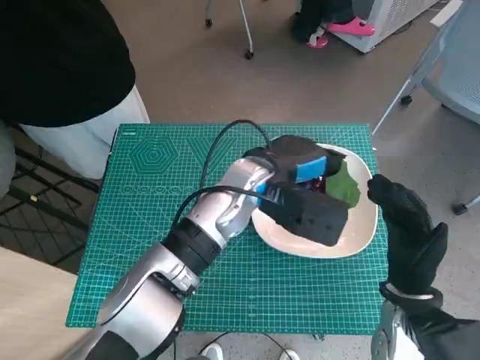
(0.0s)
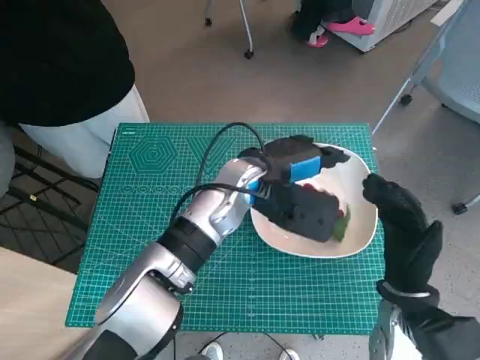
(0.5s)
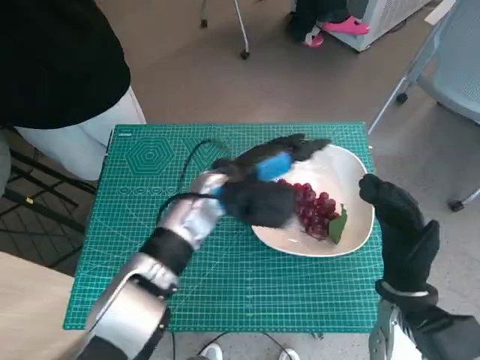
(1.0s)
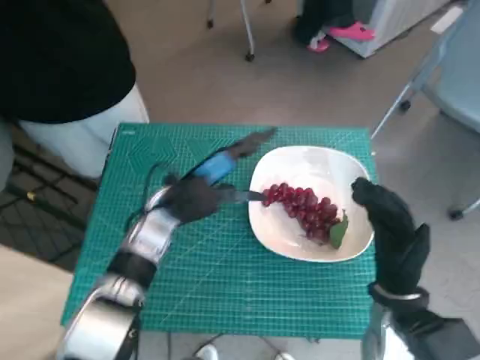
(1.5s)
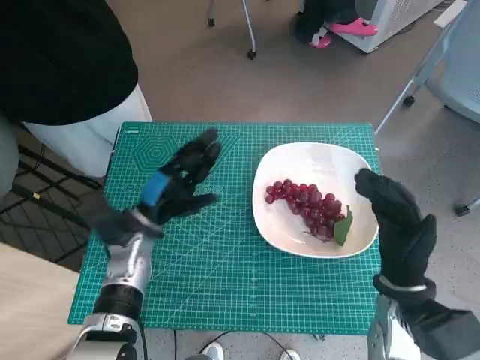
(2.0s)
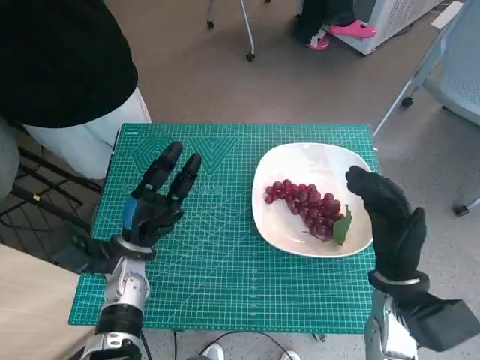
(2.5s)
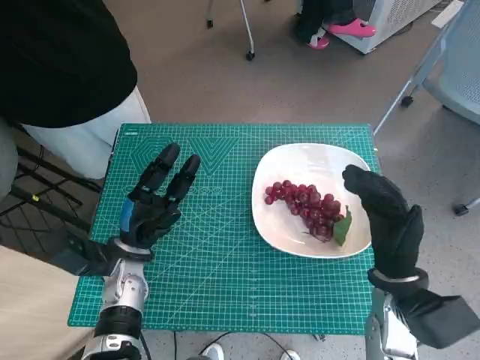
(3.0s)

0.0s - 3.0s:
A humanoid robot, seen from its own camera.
Task of the whole recording: Pick up the grapes and put them on the plate.
0.0s - 1.5s: The left hand is displaced to the left and downward by some 15 cm.
1.5s - 3.0s: The left hand is displaced to the left, downward and backward by some 15 cm.

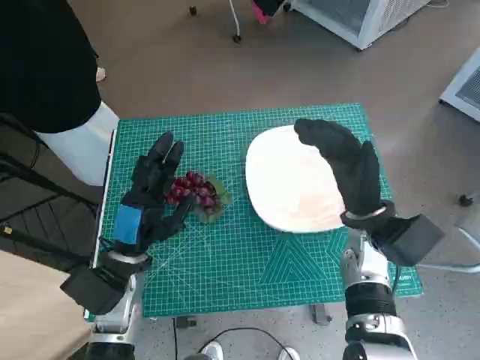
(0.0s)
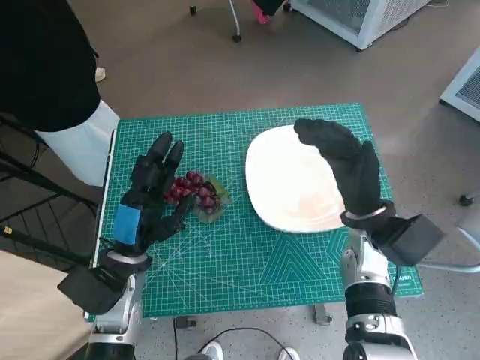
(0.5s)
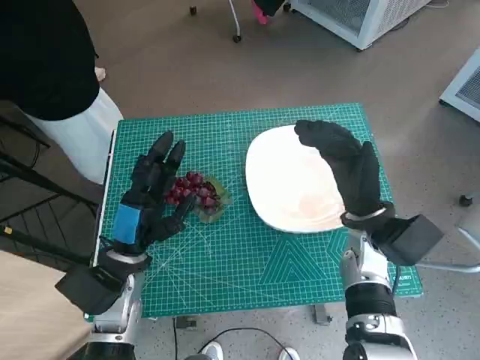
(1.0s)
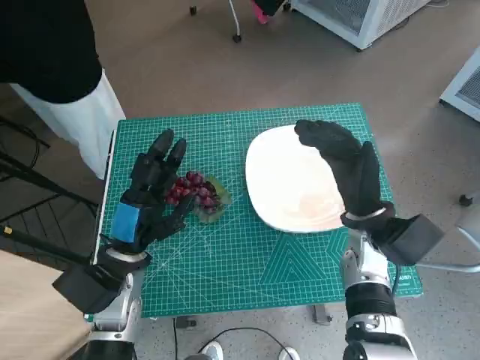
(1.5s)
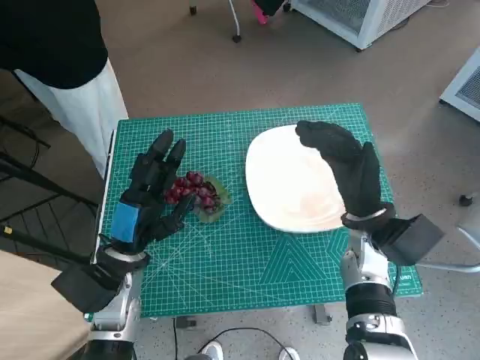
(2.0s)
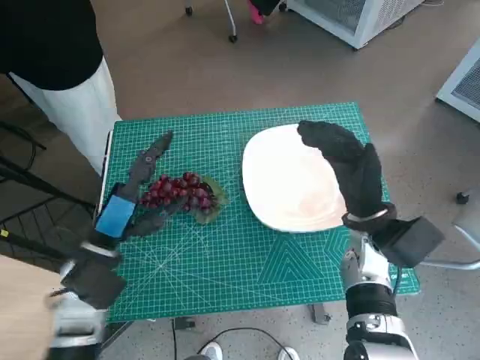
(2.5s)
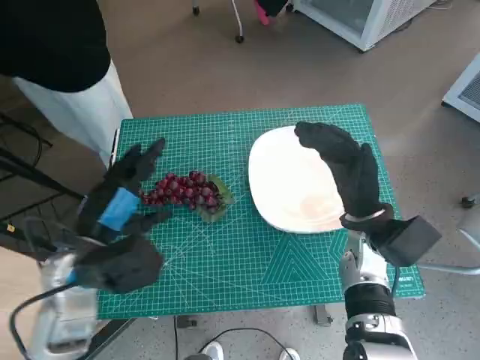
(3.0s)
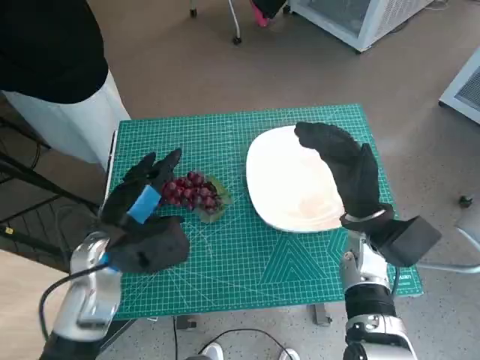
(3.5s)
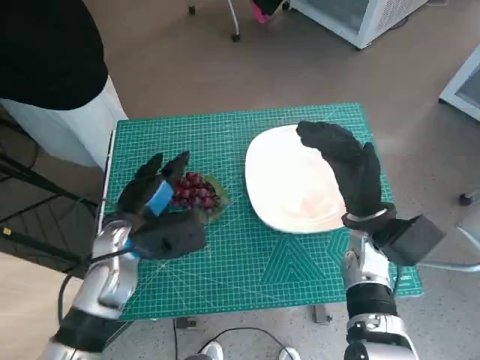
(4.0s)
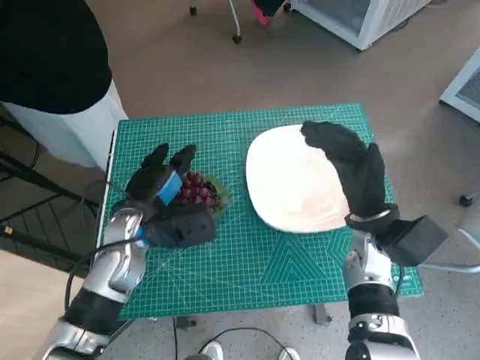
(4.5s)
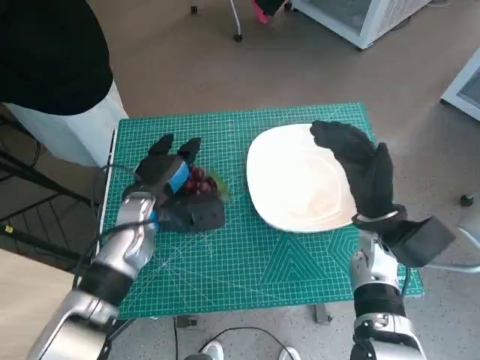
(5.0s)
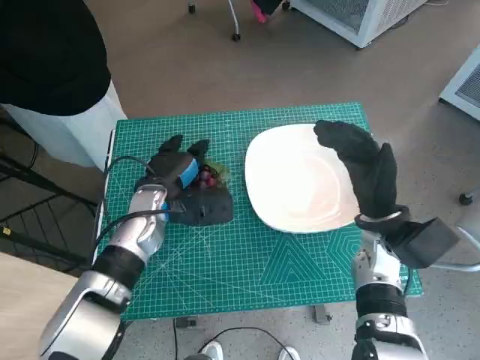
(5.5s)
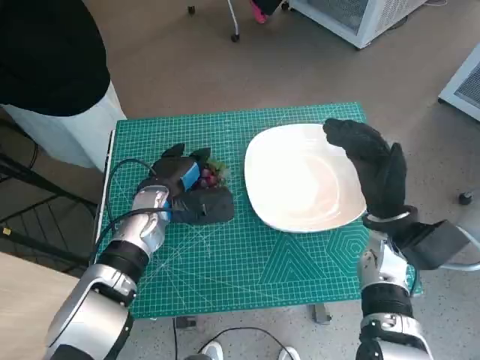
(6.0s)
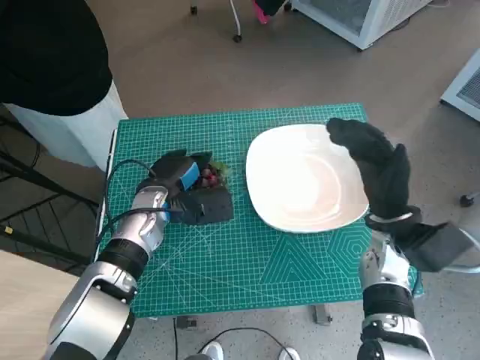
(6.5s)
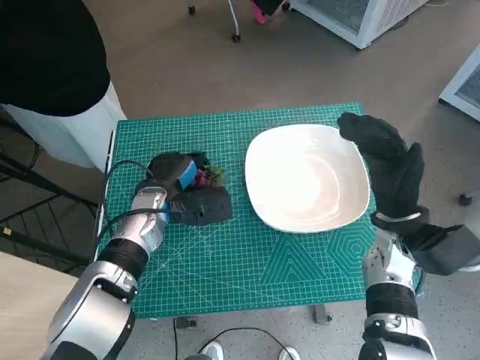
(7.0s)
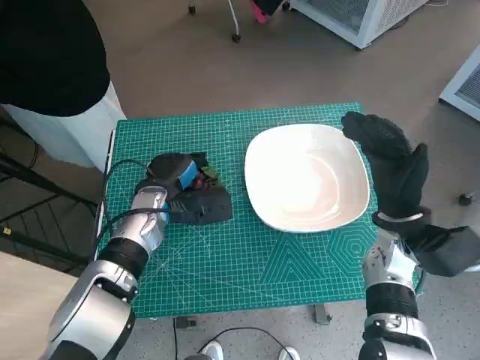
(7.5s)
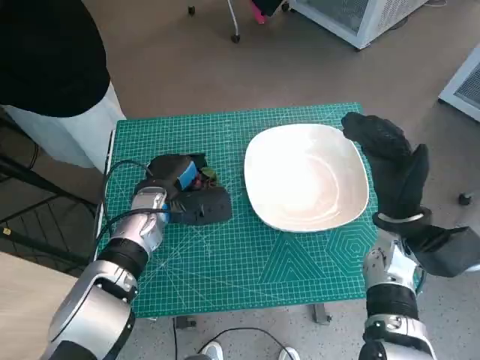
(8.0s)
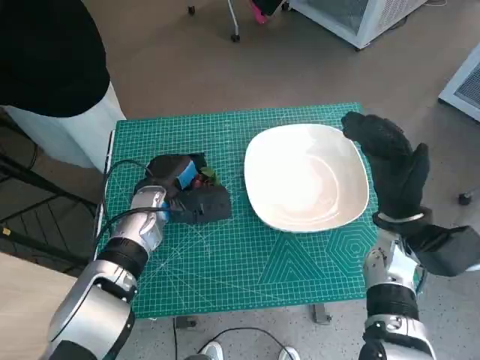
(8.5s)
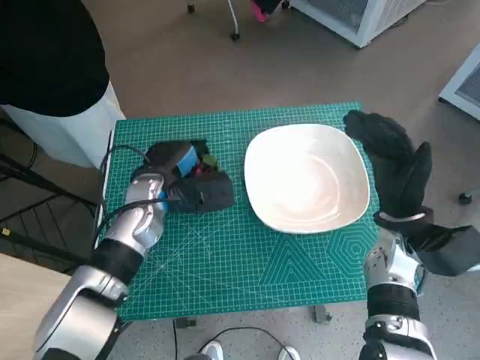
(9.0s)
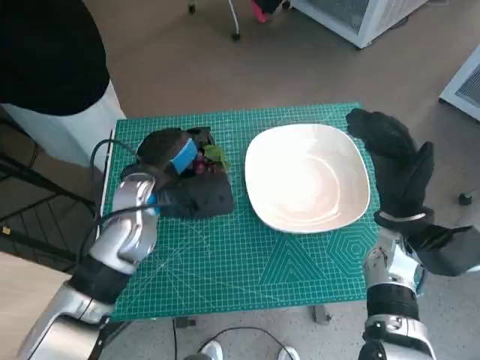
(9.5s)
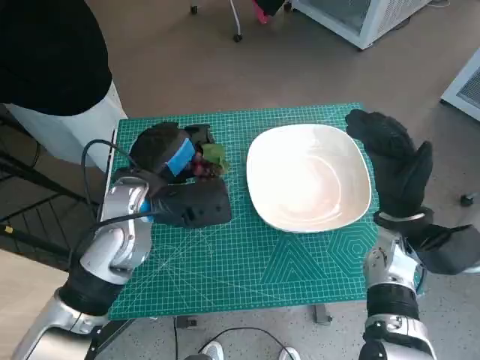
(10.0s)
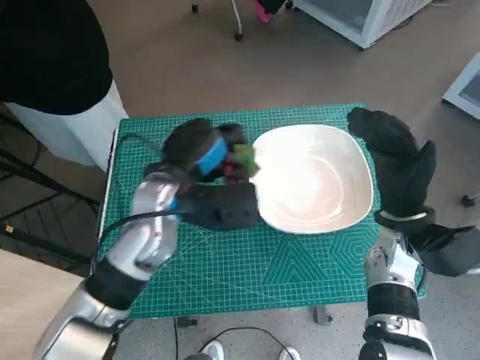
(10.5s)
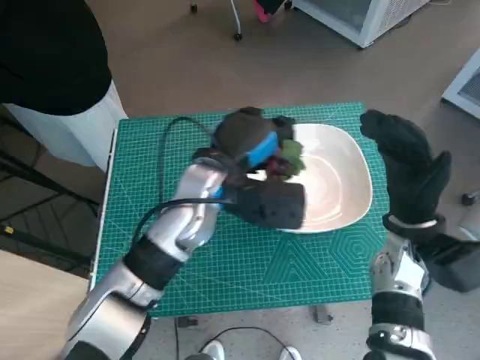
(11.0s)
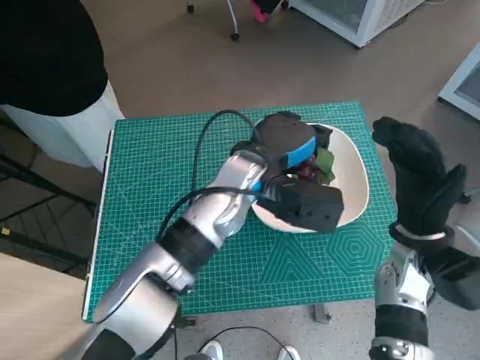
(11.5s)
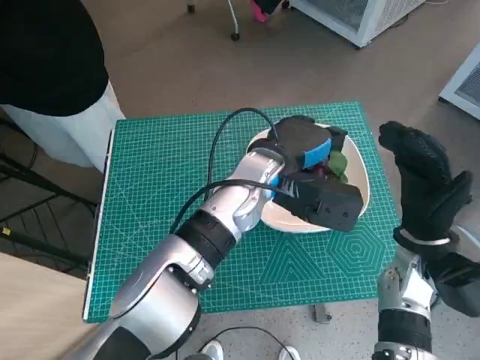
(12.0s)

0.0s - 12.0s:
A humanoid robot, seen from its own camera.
Task of the whole recording: Pick up the grapes and put them on the plate.
Step, 0.0s - 7.0s: Grasp the grapes with left hand.
4.0s - 6.0s: The left hand heads forward, covering some 5 cm.
6.0s - 8.0s: The hands make only small movements.
8.0s - 10.0s: The left hand moves upward, about 10 cm.
10.0s - 12.0s: The left hand moves to the right, about 15 cm.

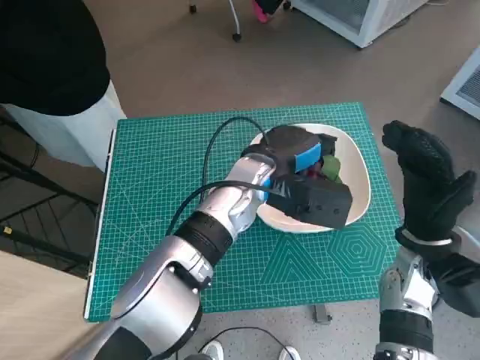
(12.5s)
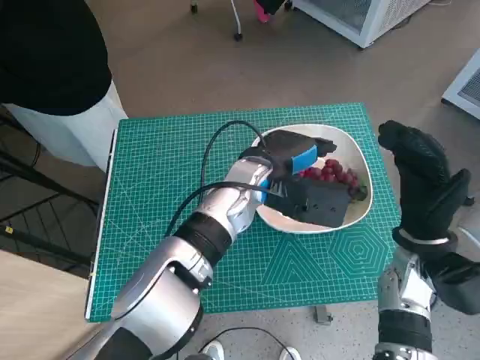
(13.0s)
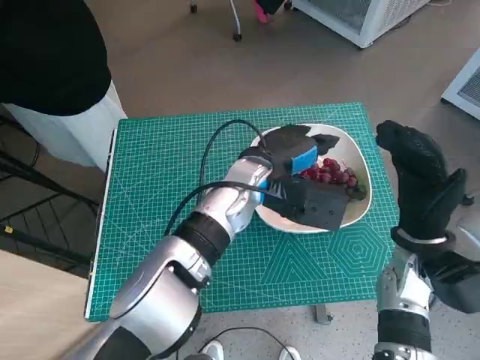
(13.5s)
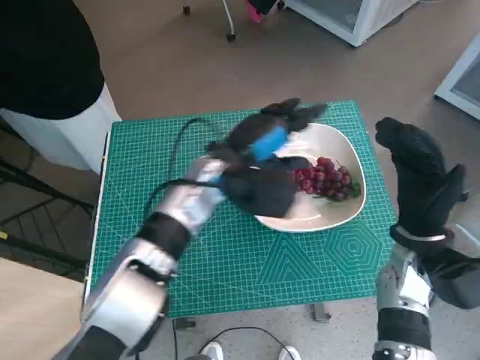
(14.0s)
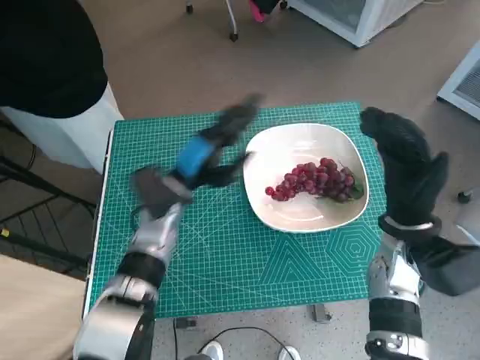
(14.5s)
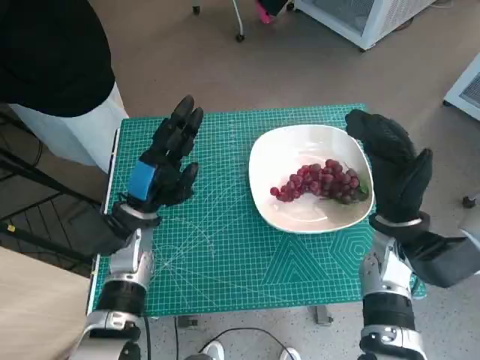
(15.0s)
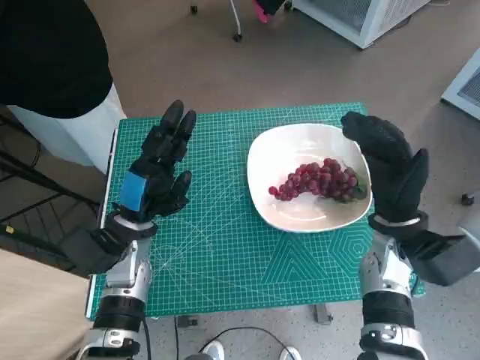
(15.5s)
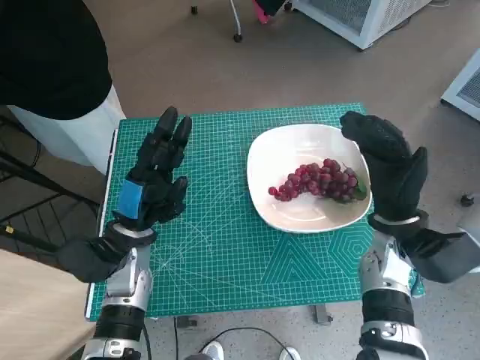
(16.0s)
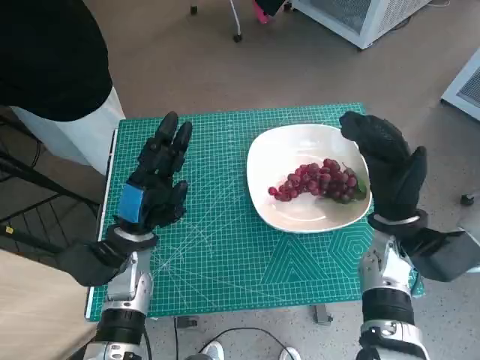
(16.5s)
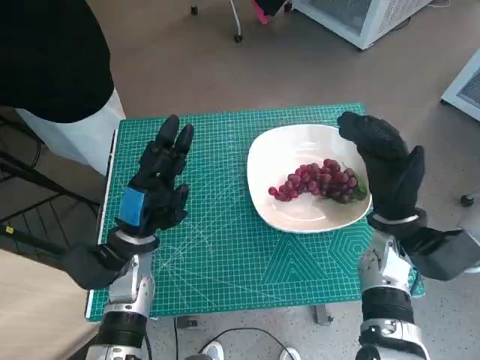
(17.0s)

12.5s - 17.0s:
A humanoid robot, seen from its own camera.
Task of the whole recording: Pick up the grapes and put them on the plate.
12.5s - 14.5s: The left hand is displaced to the left by some 15 cm.
14.5s - 17.0s: The left hand heads backward and to the left, covering roughly 10 cm.

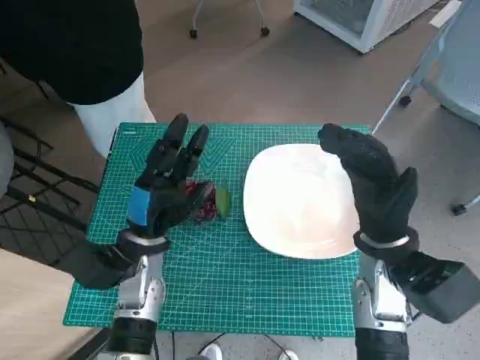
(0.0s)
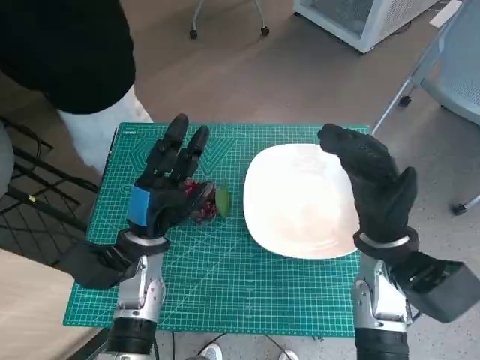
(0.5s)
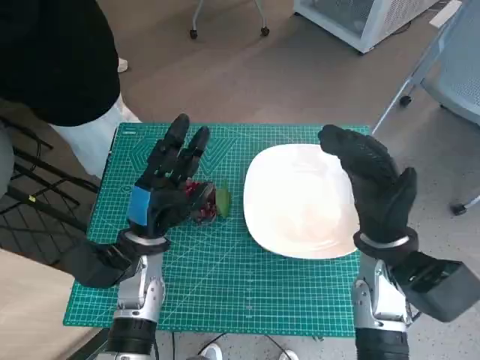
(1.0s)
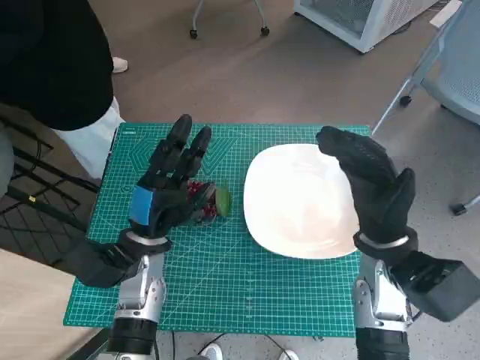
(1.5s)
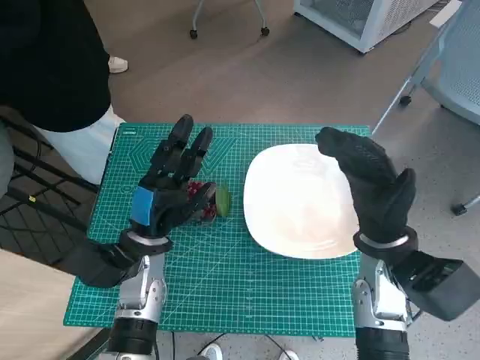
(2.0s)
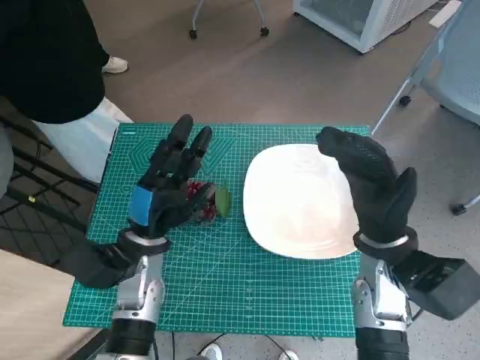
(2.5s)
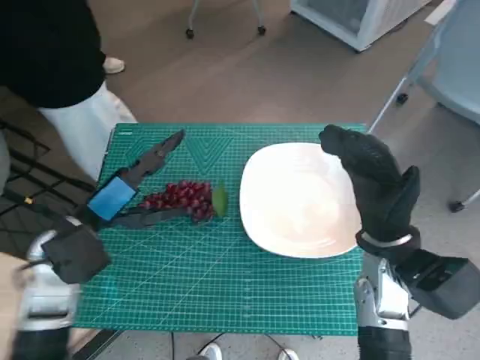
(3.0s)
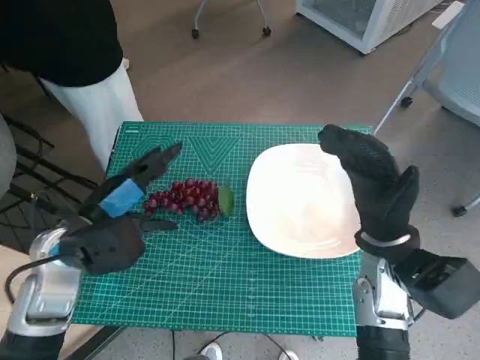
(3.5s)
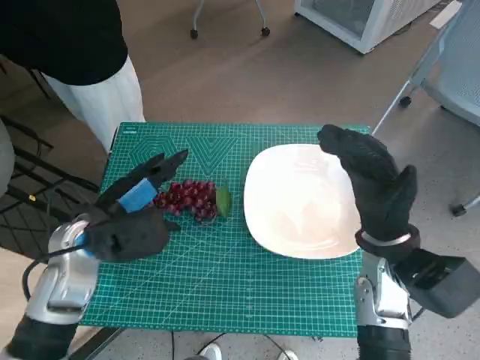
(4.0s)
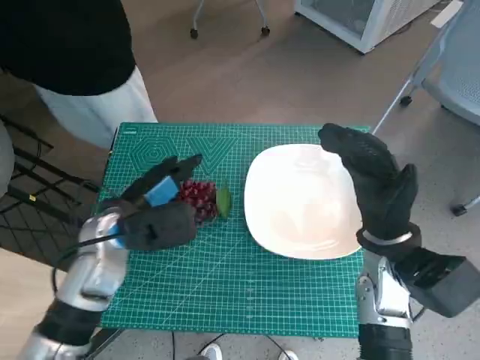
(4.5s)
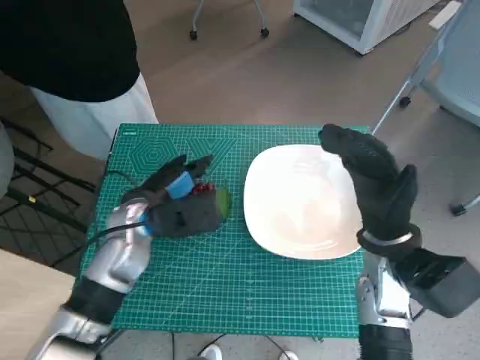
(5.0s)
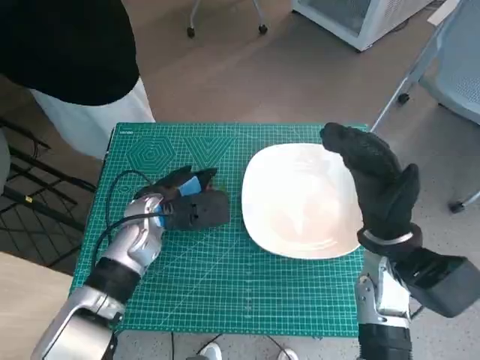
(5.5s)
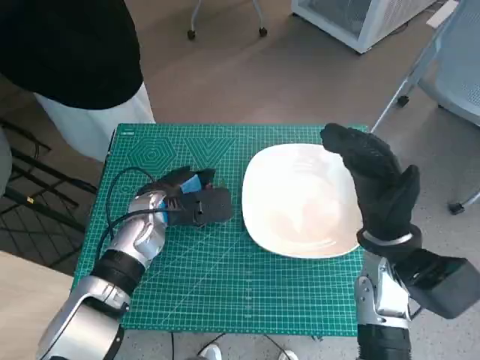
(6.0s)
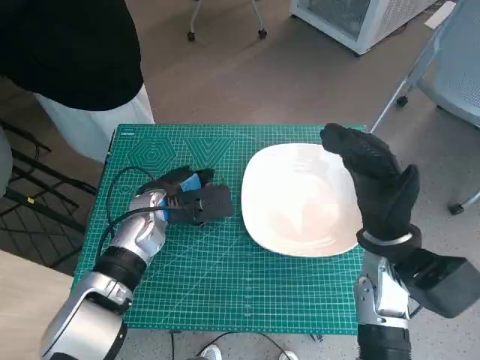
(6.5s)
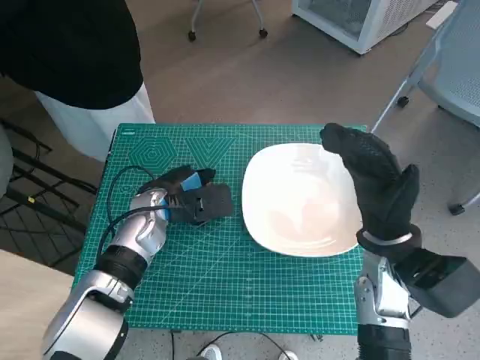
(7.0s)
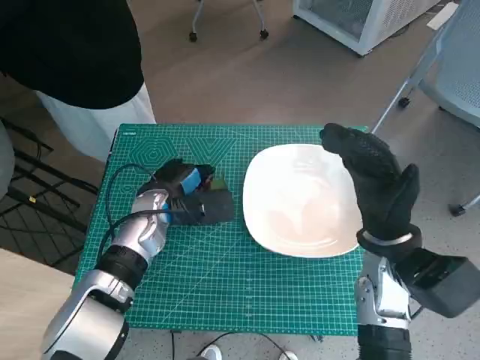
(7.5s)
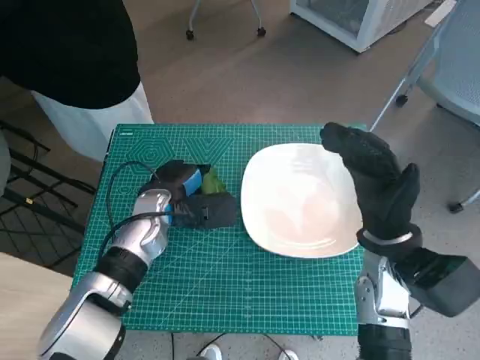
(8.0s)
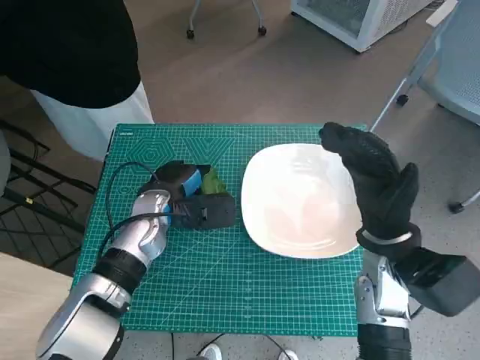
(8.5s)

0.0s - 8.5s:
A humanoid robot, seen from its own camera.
Task of the whole recording: Pick up the grapes and put them on the plate.
Step, 0.0s - 7.5s: Grasp the grapes with left hand.
2.0s - 4.0s: The left hand is displaced upward and to the left by some 10 cm.
4.0s - 6.5s: The left hand moves forward, to the right and downward, approximately 10 cm.
6.5s - 8.5s: The hands move only a little.
